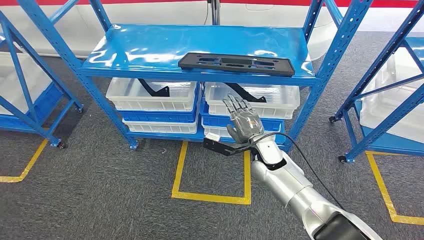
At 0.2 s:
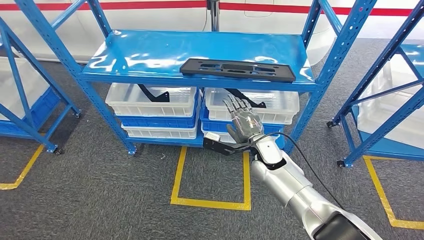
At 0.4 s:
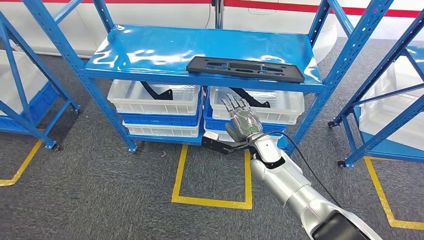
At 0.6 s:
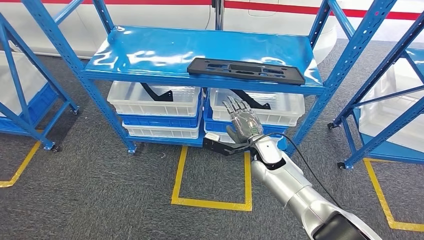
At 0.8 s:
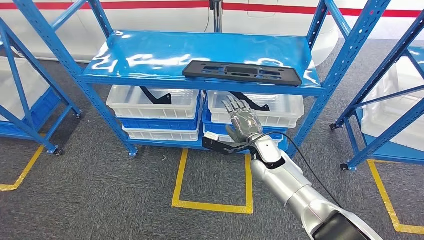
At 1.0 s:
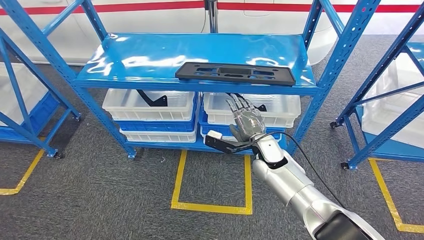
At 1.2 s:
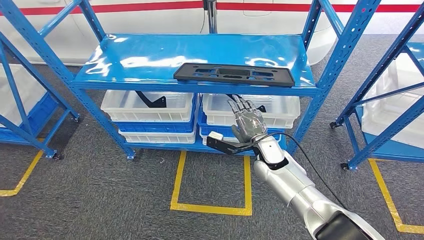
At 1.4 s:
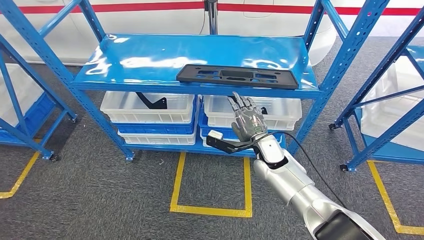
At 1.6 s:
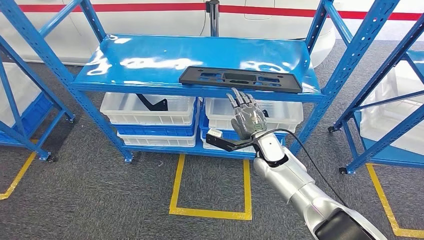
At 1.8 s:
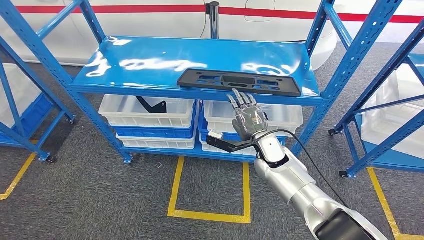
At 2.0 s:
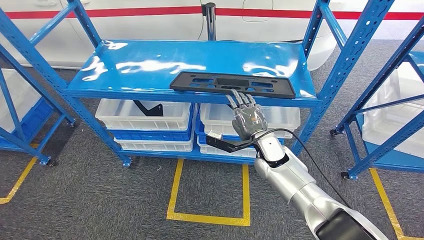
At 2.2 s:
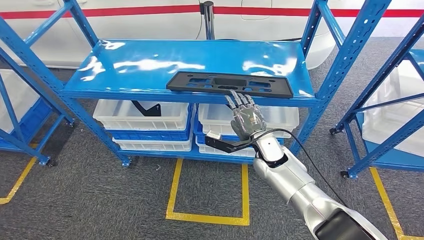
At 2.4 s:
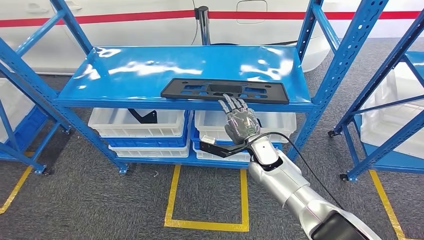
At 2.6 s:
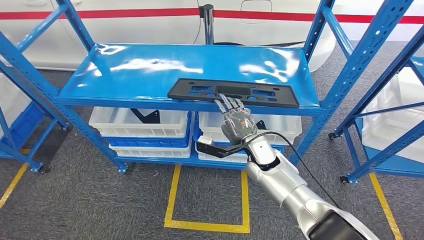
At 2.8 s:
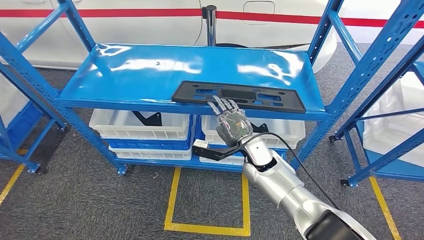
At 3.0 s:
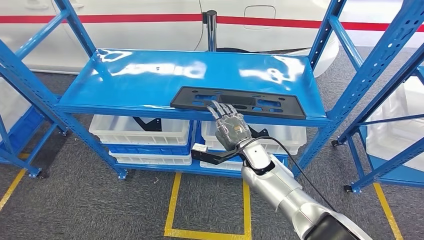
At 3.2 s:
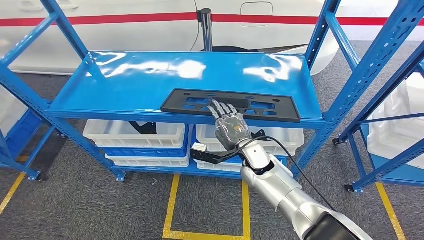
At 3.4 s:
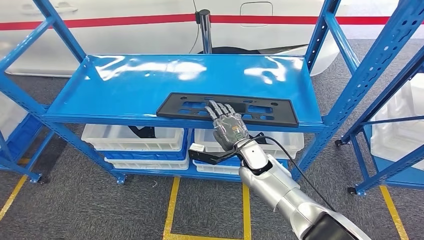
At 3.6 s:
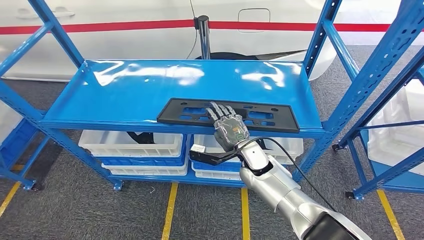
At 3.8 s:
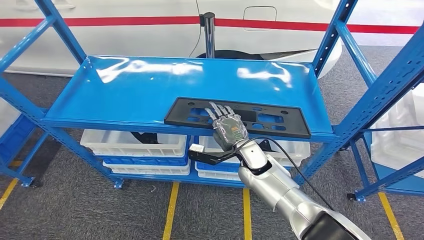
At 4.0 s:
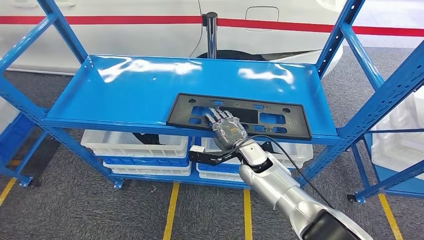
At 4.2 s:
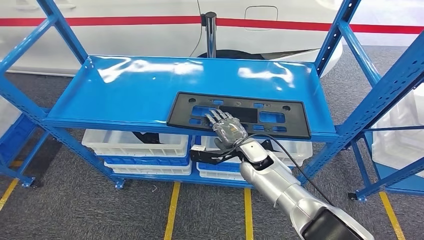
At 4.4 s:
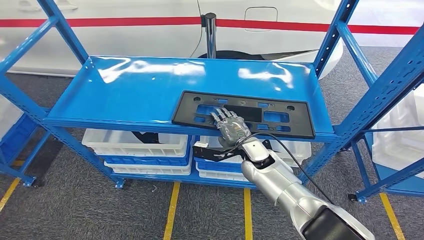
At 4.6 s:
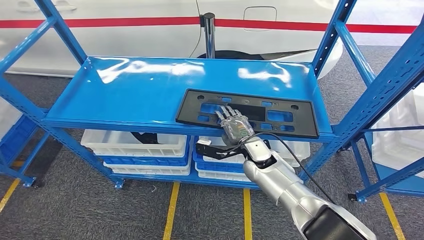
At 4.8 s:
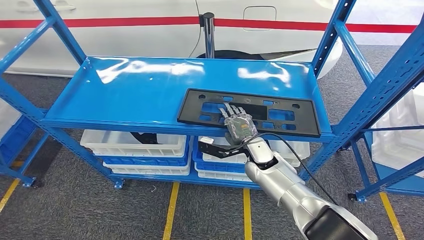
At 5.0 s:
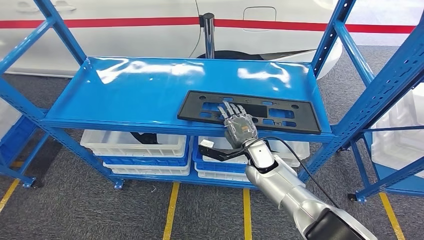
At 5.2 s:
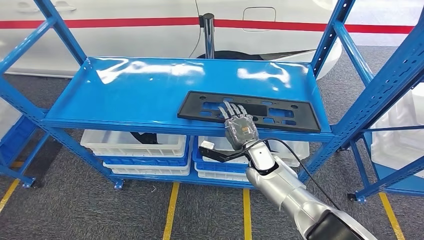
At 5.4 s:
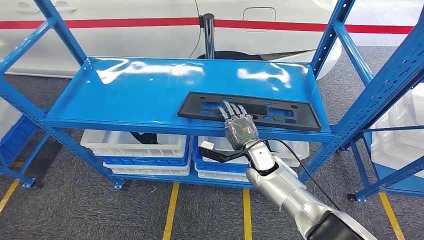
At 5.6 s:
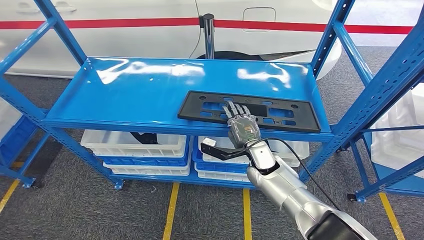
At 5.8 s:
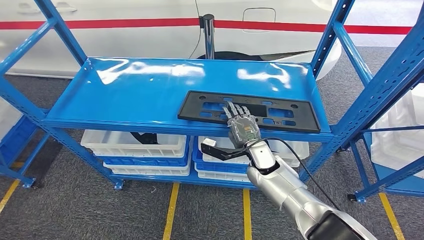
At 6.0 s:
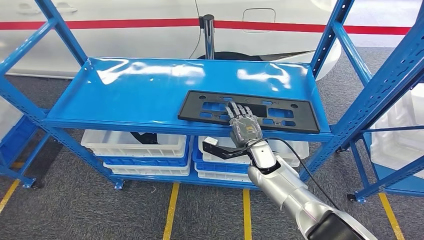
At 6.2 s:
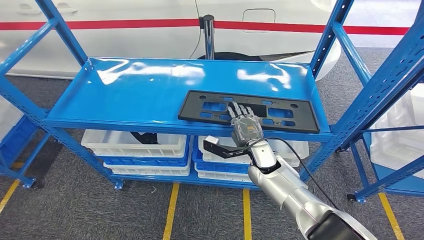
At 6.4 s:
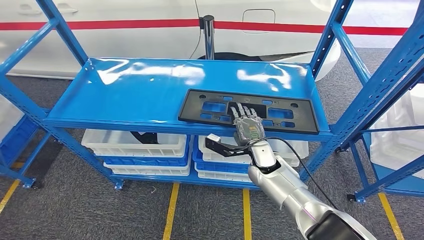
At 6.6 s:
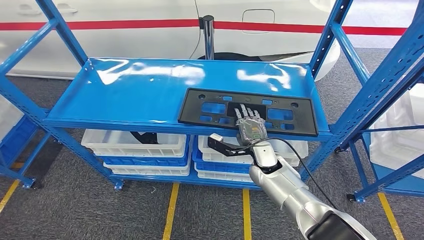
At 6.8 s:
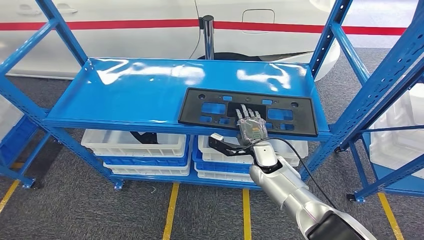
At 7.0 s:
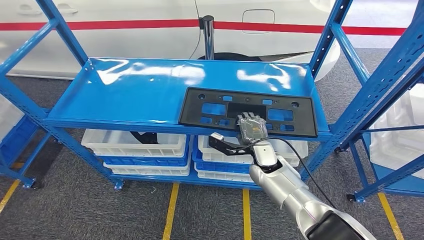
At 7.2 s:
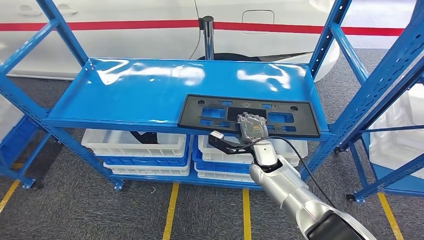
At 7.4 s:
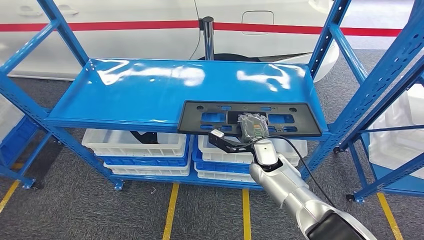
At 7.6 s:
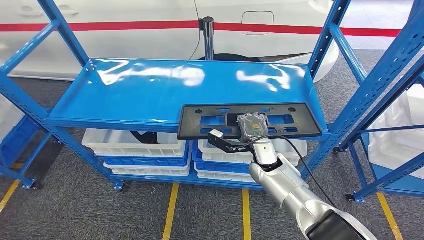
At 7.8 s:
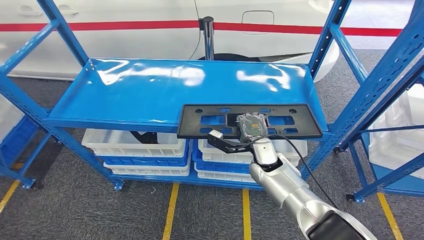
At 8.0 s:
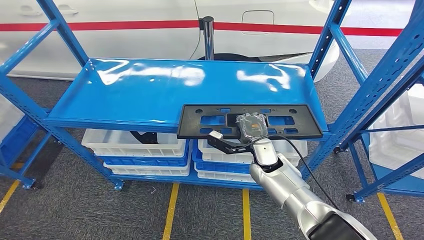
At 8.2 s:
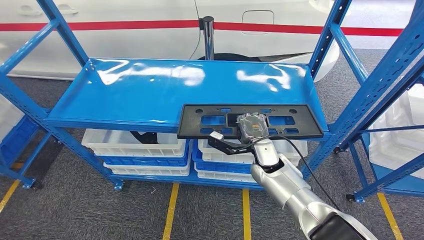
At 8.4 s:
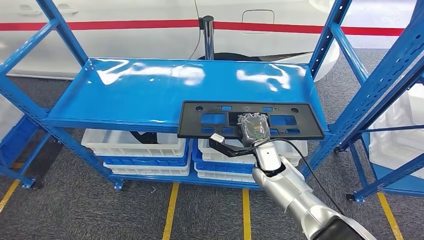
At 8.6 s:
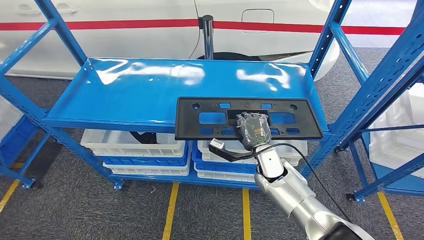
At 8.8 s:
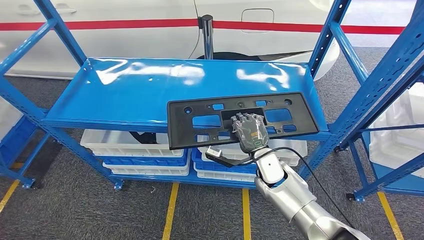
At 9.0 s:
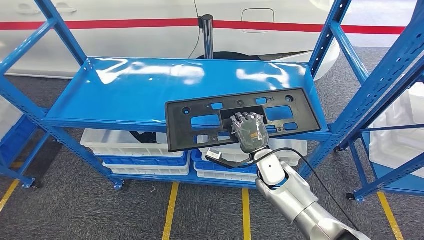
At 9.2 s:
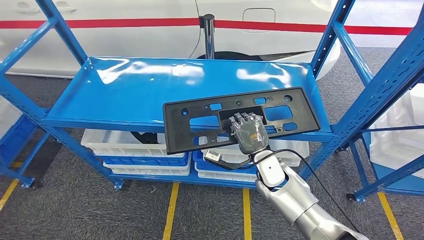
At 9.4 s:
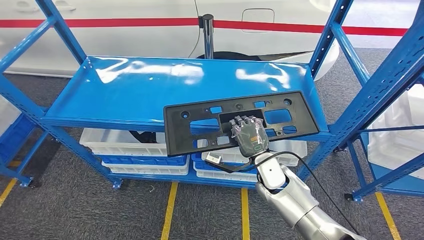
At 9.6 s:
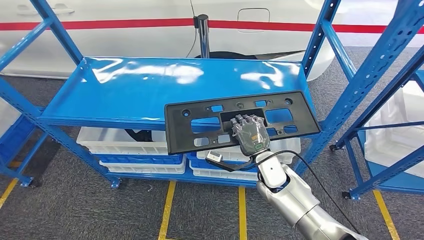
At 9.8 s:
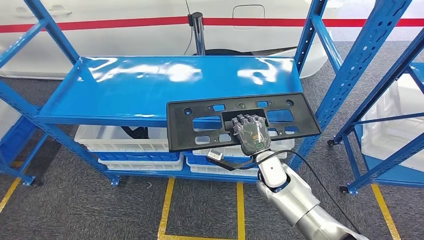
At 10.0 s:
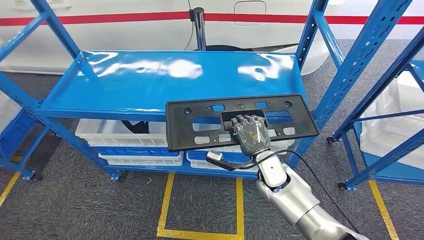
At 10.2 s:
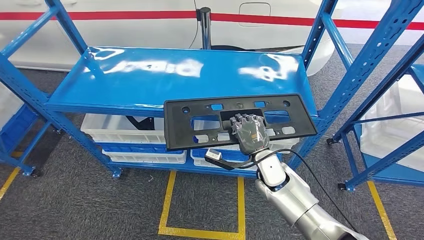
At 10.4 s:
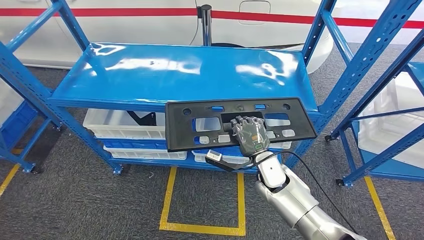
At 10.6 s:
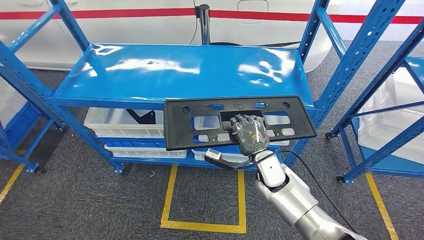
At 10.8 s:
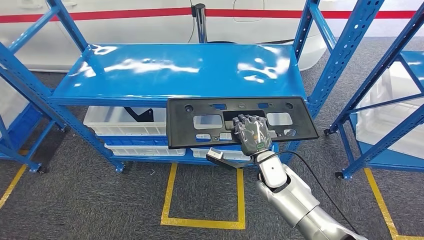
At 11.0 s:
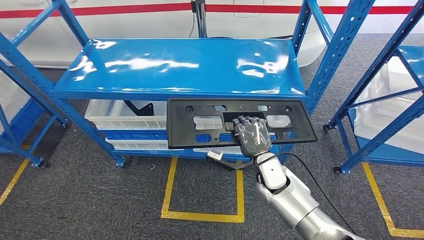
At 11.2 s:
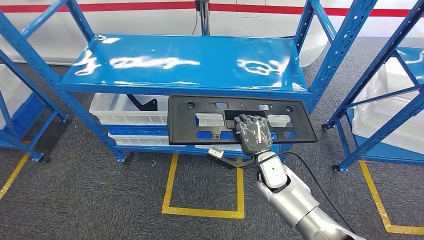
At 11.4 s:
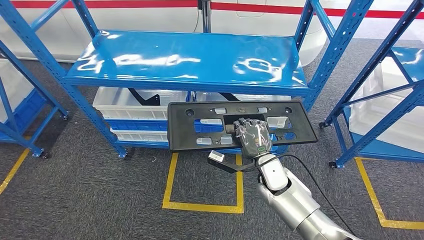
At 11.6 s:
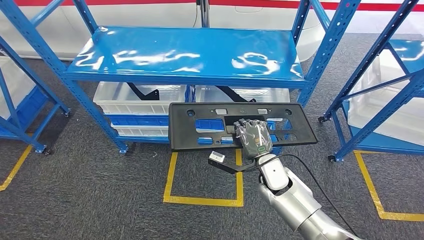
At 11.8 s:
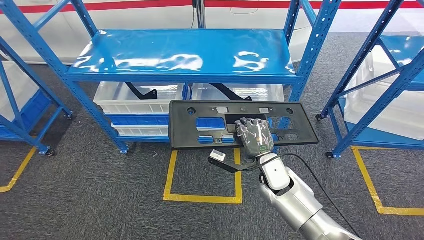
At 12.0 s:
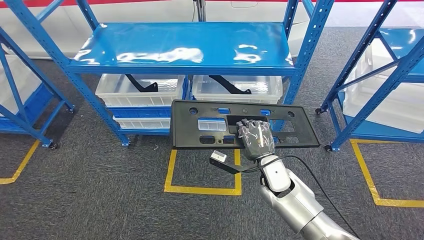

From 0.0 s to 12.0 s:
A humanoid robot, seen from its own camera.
Step, from 0.0 s to 11.0 s: Pick up the large material from the shelf.
From 4.4 s to 6.0 s: There are only small adjustments of the hands.
From 6.0 s to 7.6 s: There are only small adjustments of the hands.

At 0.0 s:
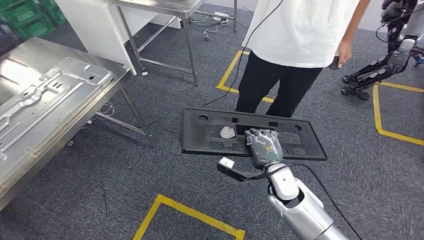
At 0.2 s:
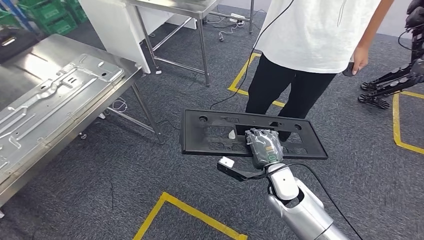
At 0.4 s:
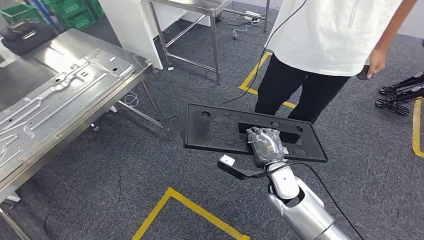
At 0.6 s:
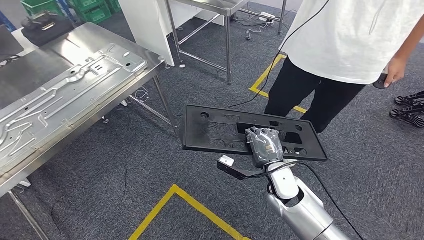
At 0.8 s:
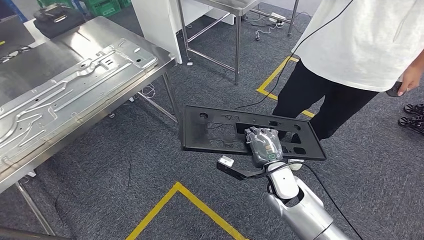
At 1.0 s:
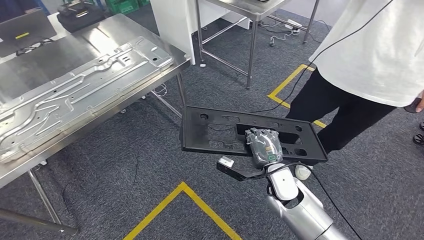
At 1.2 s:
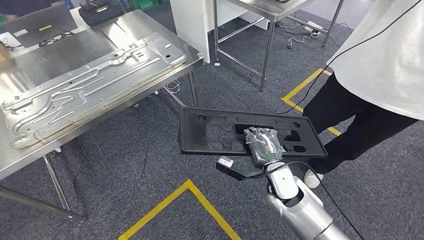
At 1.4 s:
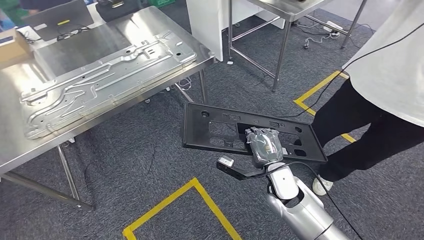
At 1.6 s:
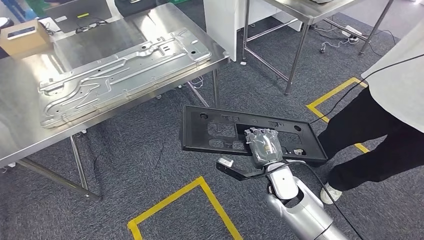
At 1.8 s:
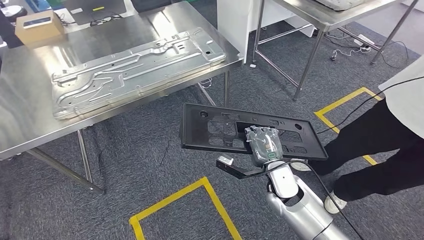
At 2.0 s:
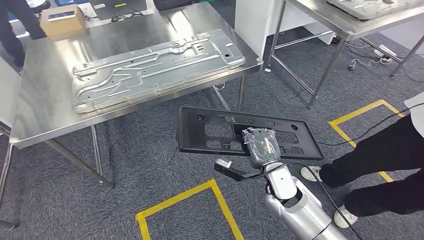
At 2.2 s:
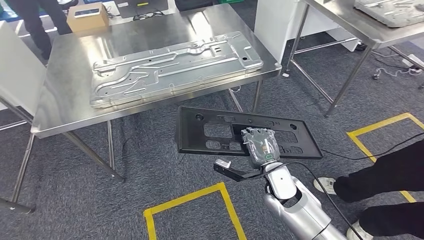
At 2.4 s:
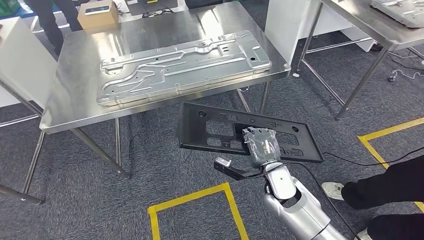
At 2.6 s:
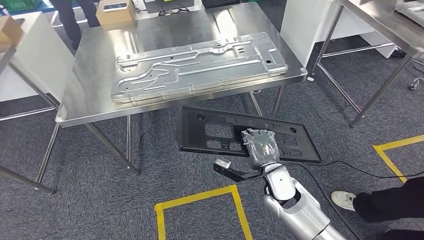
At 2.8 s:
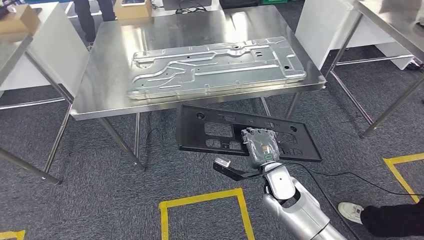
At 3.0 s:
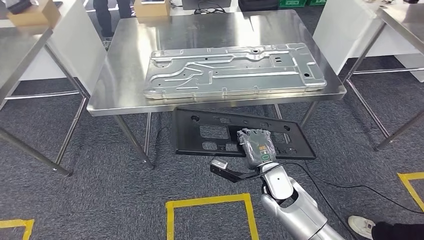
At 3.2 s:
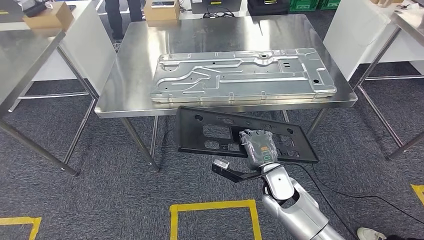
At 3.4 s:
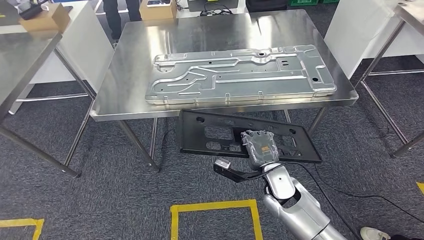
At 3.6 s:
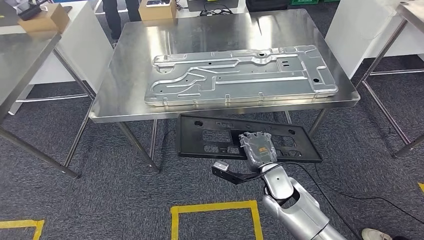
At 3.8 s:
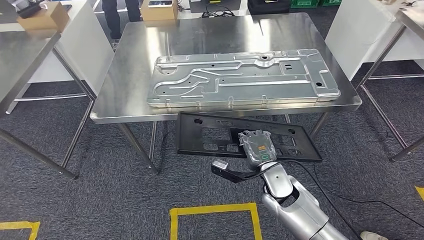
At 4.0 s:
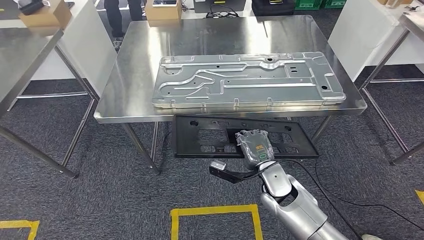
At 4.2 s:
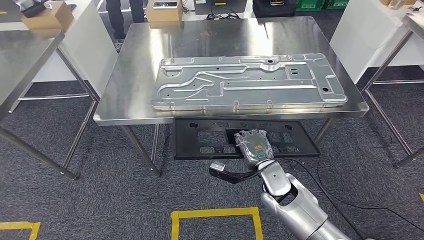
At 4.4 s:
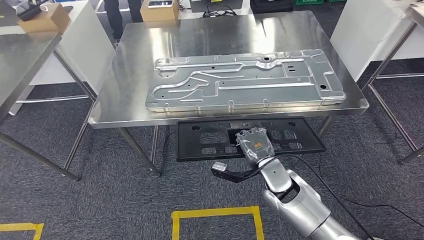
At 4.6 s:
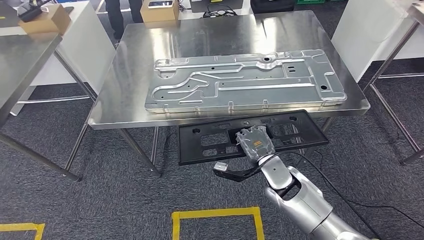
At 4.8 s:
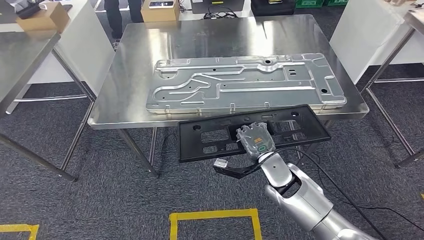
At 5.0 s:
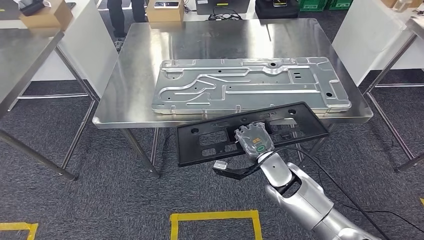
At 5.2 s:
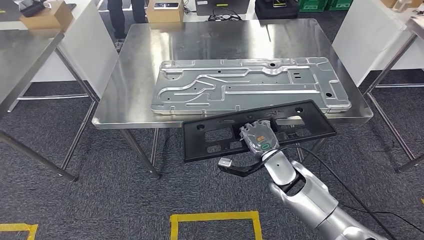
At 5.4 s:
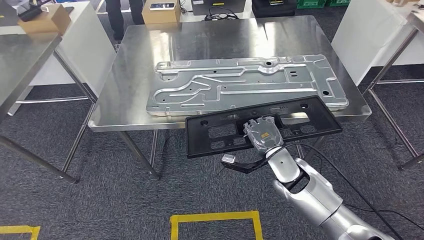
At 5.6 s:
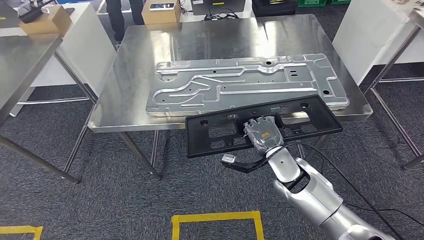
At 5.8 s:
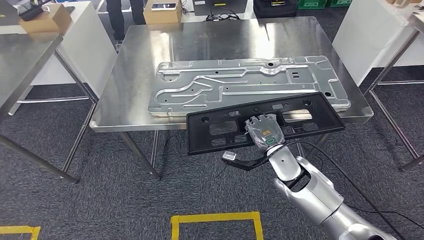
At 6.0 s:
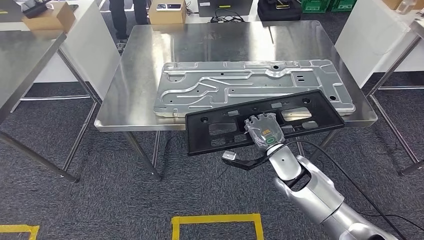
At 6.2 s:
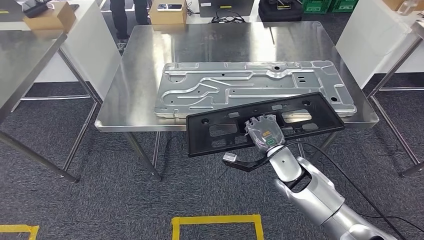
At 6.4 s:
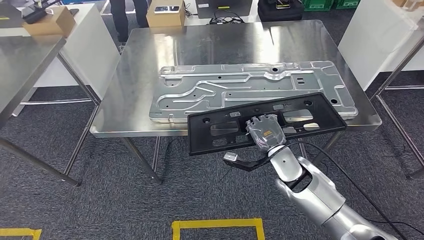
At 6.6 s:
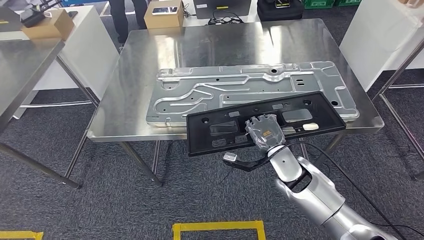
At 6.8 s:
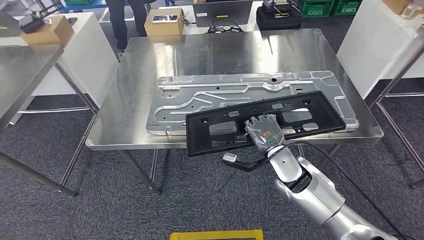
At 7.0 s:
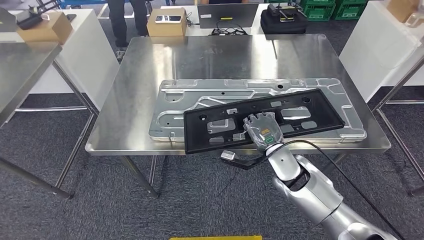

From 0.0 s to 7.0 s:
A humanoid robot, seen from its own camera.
Step, from 0.0 s to 3.6 s: Move the large material to the workbench.
